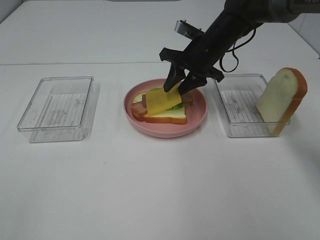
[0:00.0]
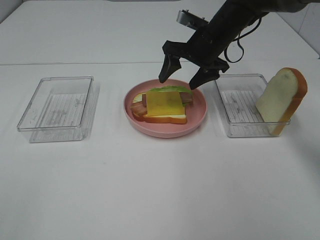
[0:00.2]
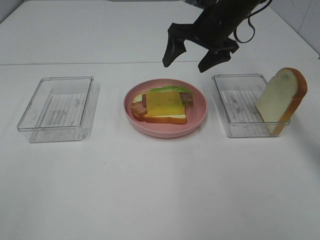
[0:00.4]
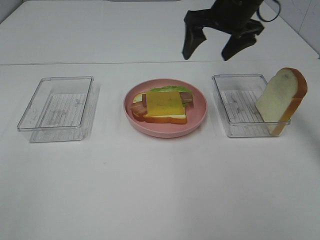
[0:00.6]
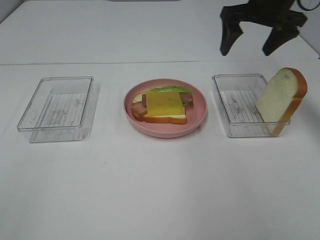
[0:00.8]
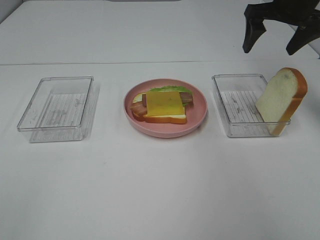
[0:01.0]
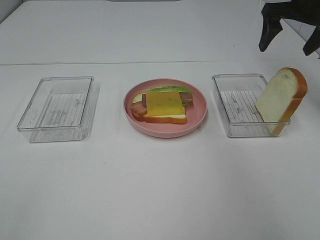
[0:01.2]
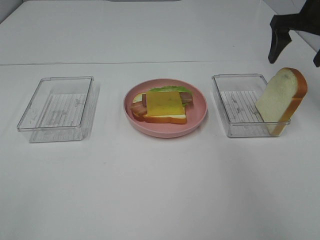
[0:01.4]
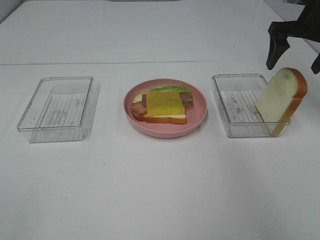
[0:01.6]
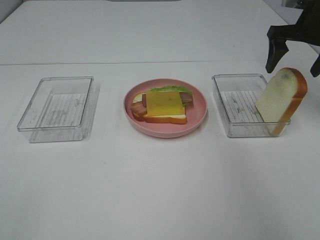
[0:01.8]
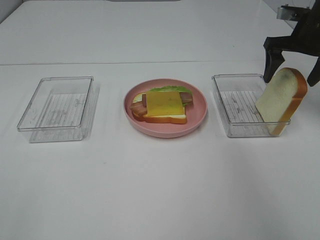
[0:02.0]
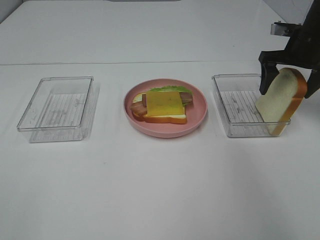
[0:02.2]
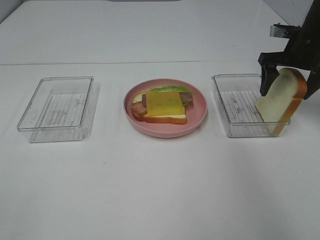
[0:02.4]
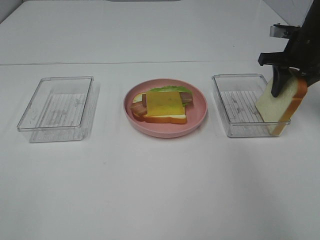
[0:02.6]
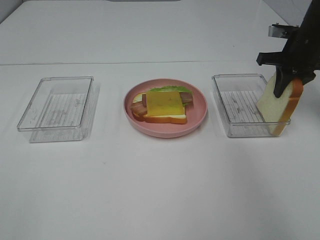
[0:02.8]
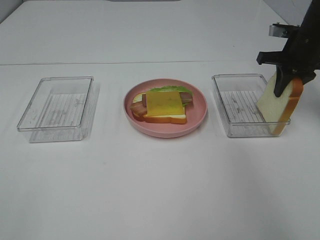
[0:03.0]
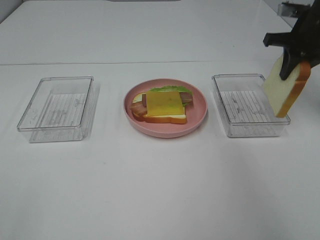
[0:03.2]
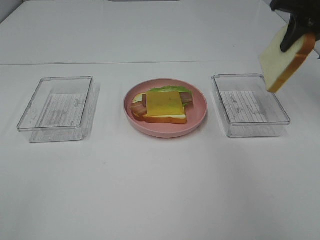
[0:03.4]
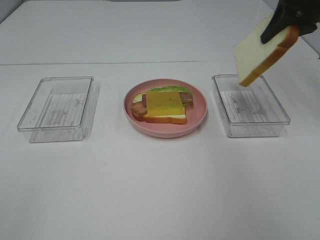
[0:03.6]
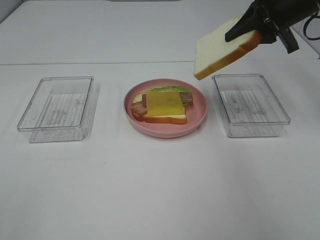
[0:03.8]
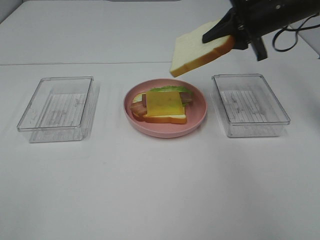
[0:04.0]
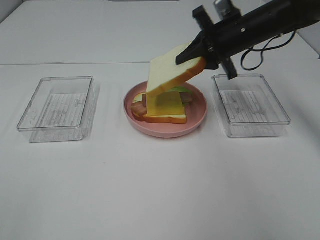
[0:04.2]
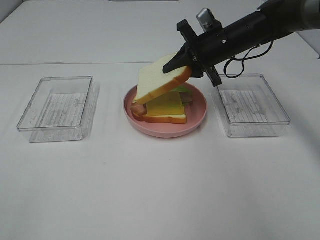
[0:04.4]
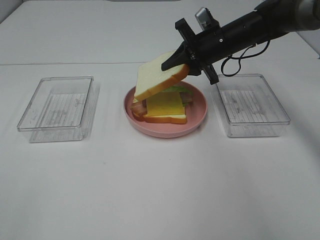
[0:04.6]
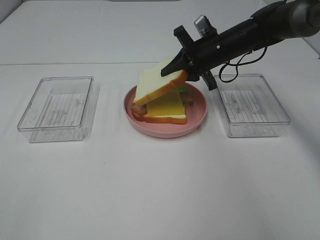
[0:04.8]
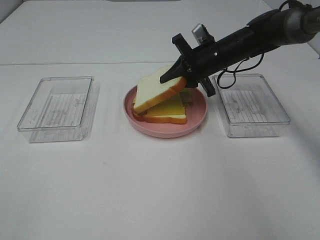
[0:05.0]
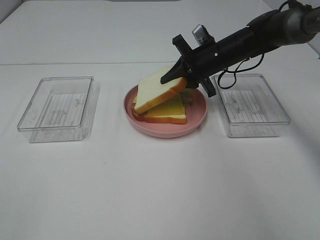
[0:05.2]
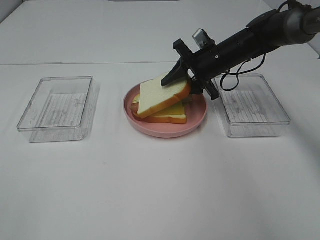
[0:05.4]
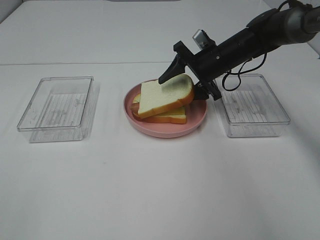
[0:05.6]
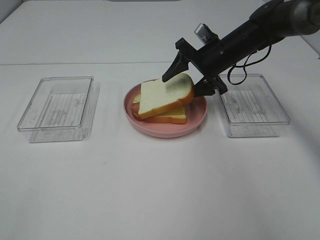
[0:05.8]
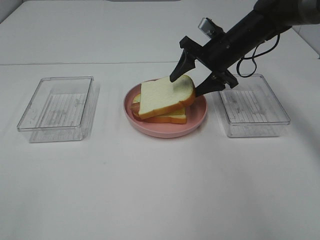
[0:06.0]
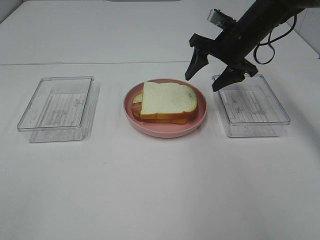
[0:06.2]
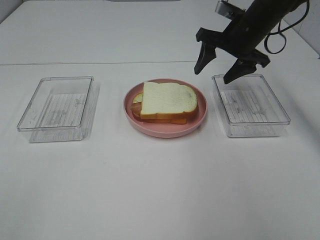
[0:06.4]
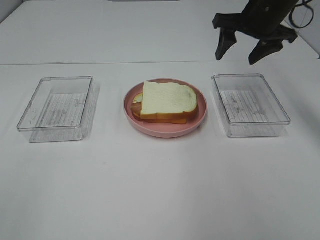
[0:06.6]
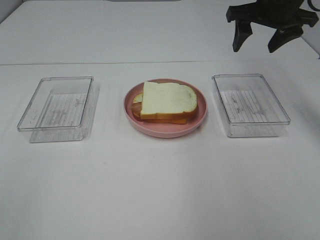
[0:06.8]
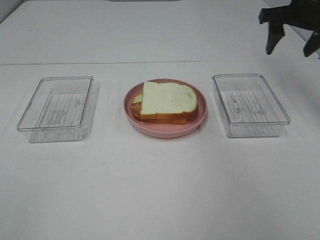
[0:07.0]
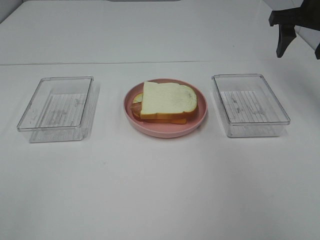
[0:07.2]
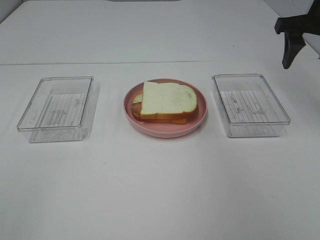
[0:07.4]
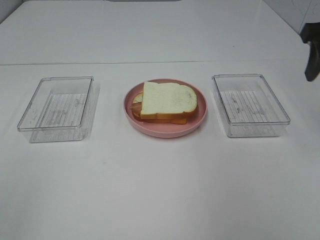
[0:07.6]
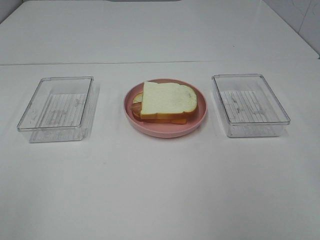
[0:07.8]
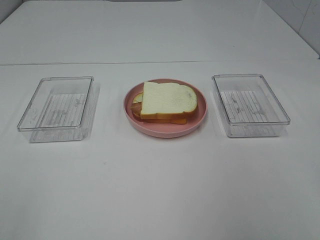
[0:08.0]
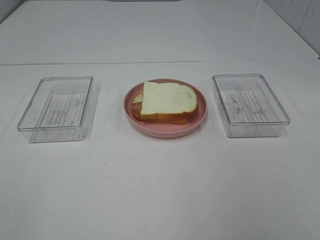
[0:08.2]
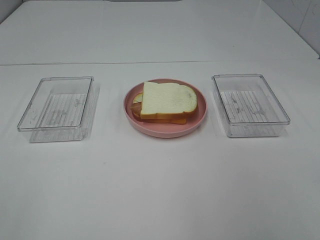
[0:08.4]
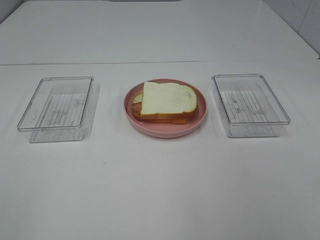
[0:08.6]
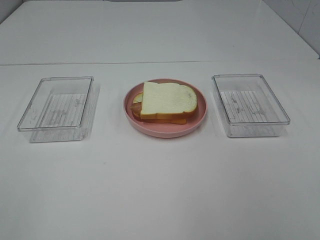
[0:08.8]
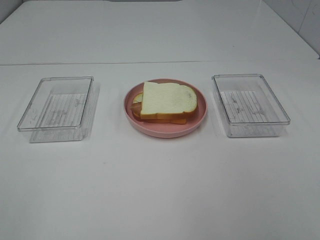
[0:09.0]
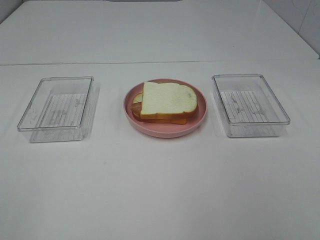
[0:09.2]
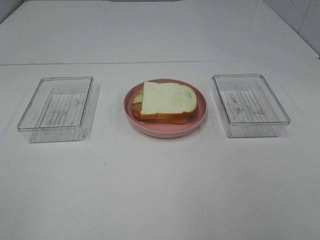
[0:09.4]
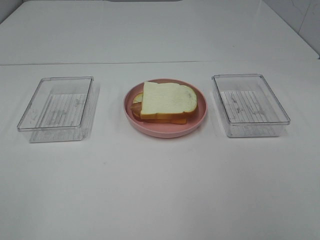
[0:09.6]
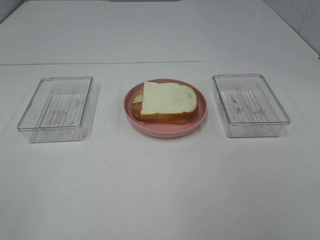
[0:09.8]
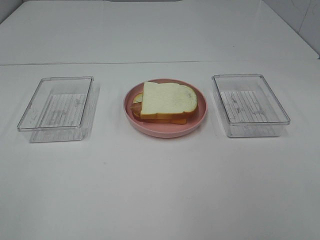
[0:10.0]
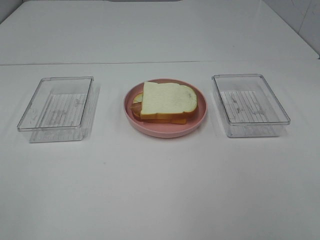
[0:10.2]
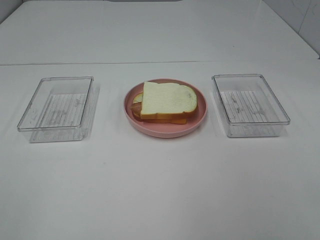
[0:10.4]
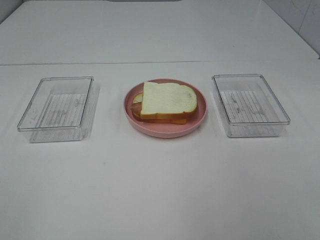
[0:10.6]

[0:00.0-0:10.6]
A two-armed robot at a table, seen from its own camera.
Task of the whole recording: Make sandwiches.
Step, 0:00.4 to 0:03.0: Right hand:grab the bread slice.
Step, 0:03.2 to 0:06.2: Right hand:place the bread slice on the cheese slice.
0:00.0 to 0:01.6: The right gripper heads to the right and upward, covering approximately 20 cm, and opens up.
0:01.6 to 0:03.0: The right gripper goes roughly 5 cm downward, and closes up.
0:03.0 to 0:04.6: The right gripper moves to the left, roughly 15 cm.
0:04.6 to 0:06.0: The right gripper opens up.
0:06.0 to 0:07.6: The right gripper is displaced backward, upward and to the right by approximately 25 cm.
0:07.6 to 0:09.0: The right gripper travels backward by about 30 cm.
